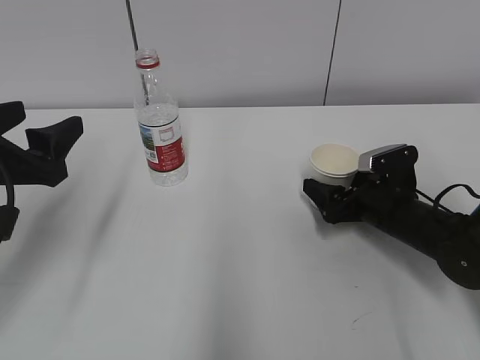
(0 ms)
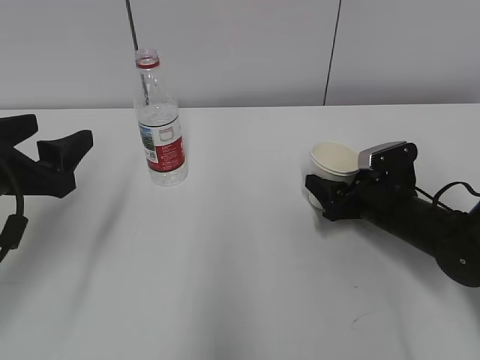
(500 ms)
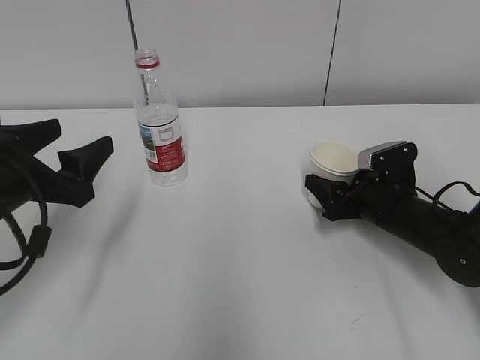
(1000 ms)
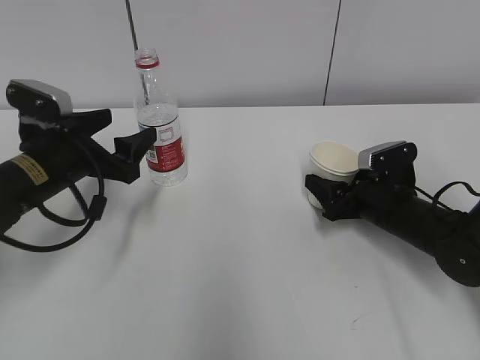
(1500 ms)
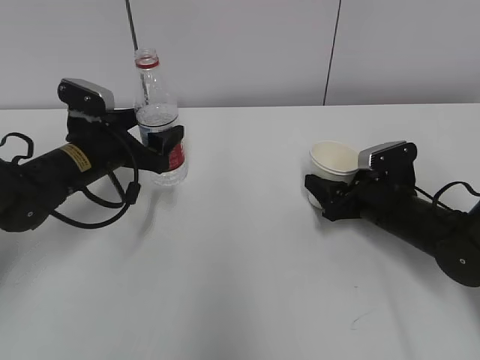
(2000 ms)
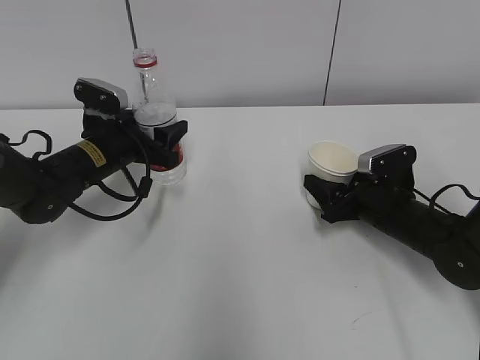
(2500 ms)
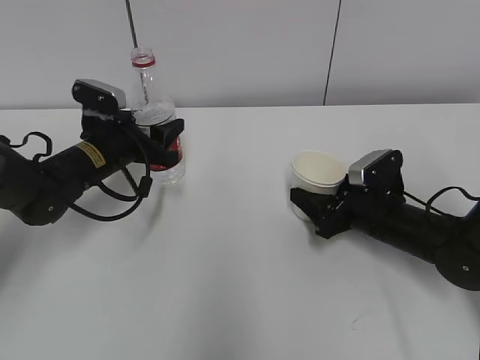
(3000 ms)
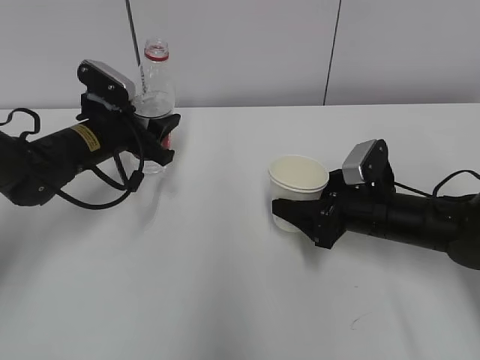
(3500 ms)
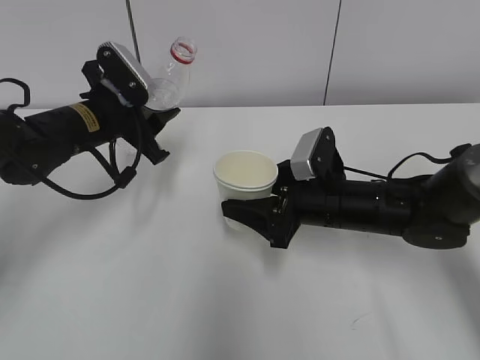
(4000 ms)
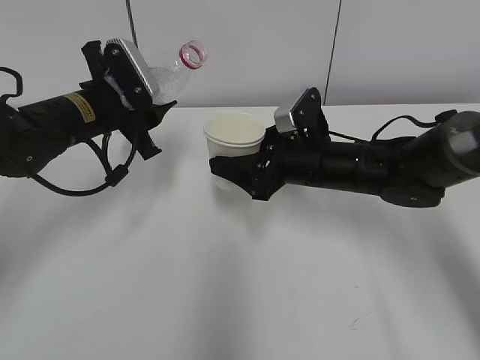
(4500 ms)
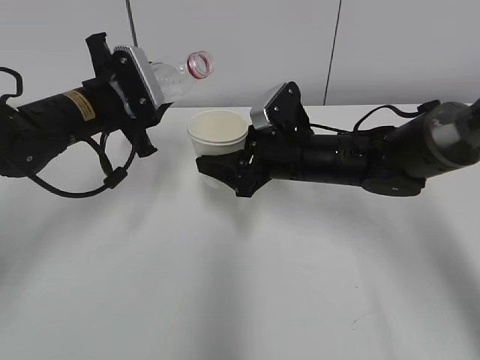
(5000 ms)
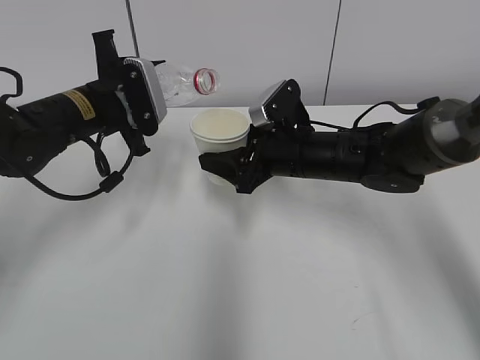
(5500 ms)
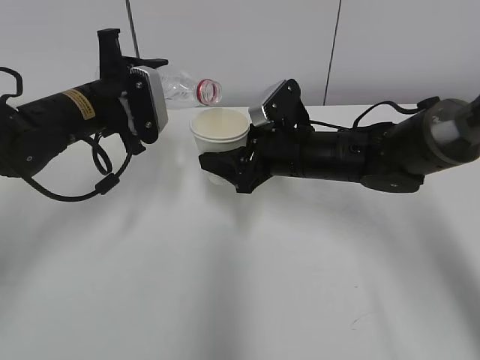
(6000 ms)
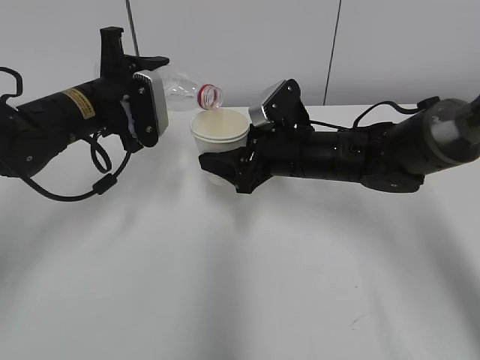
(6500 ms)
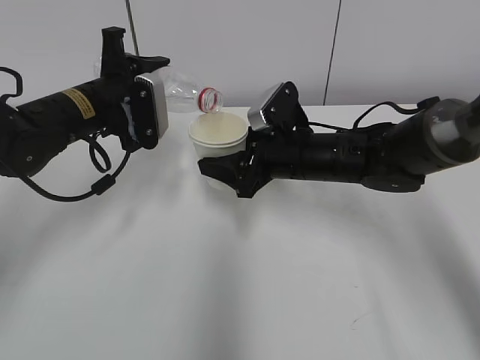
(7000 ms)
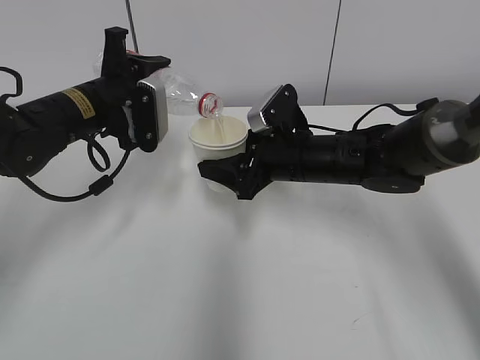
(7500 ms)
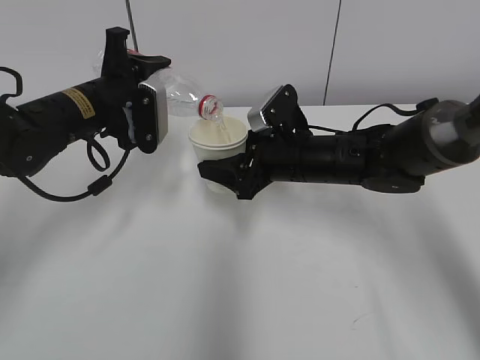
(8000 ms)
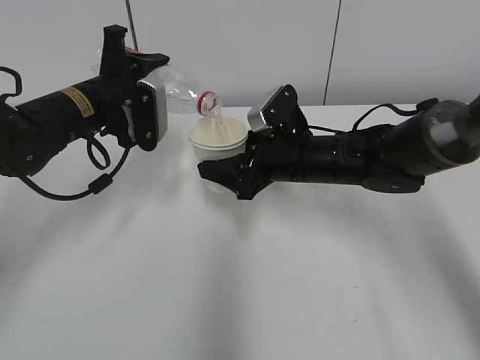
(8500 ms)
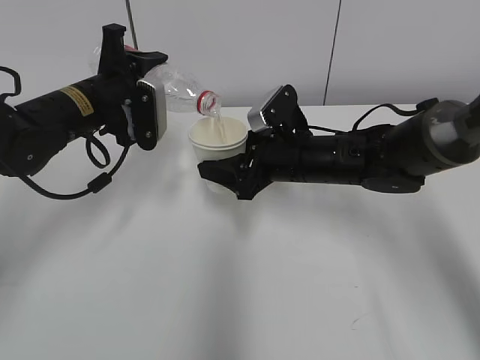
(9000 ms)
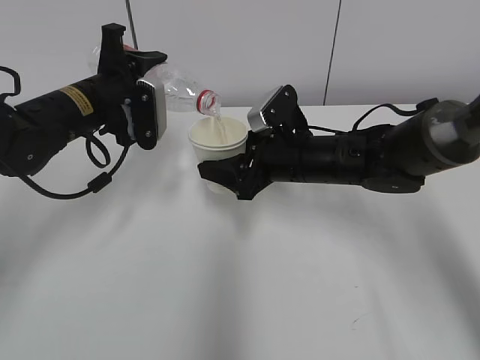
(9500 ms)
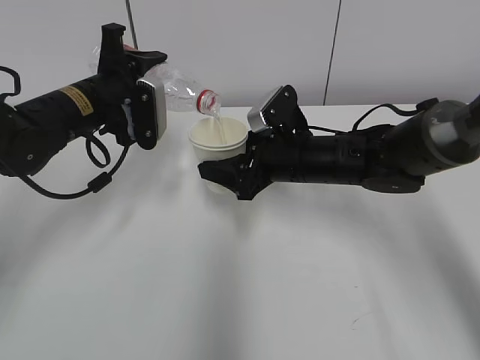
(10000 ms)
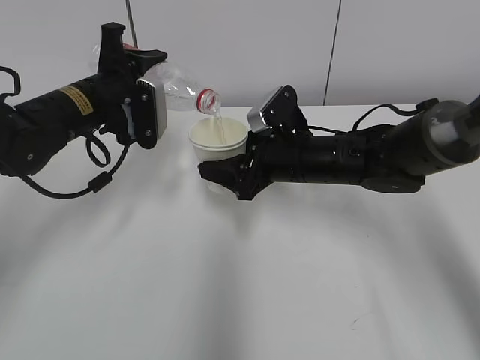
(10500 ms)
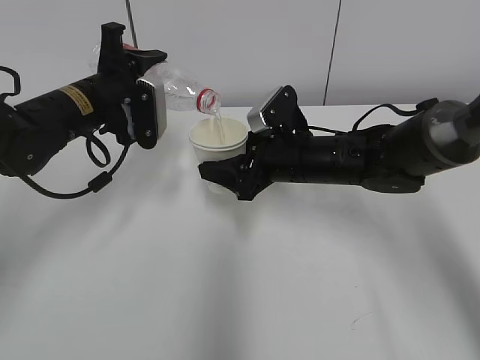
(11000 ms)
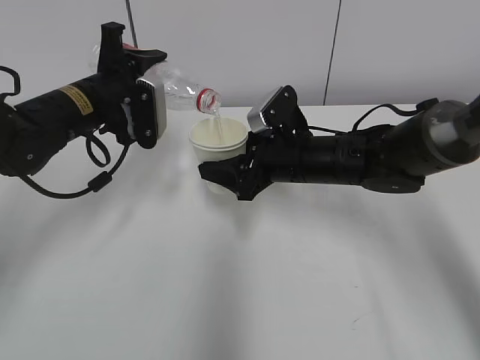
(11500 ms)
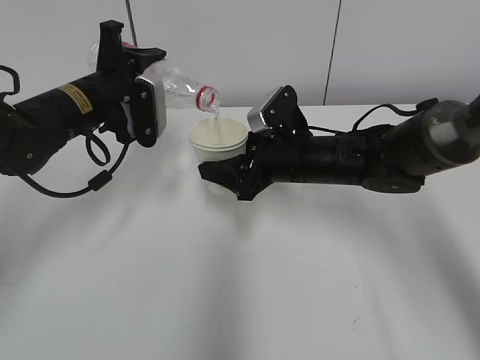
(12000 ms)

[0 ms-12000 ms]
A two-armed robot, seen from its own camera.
Step, 2000 ms to 4500 ms: Lift the paper cup with the right hand.
0 ms to 2000 ms: The left gripper moves forward, downward and to the right, some 20 cm. Meanwhile the right gripper closes.
2000 ms to 4000 ms: The right gripper is displaced to the left by about 10 cm; the left gripper changes place by about 5 cm, and closes.
4000 ms to 6000 ms: The right gripper travels forward by approximately 5 cm.
6000 ms to 8000 ms: The grippers make only small movements.
8000 ms to 12000 ms: The two grippers keep their place.

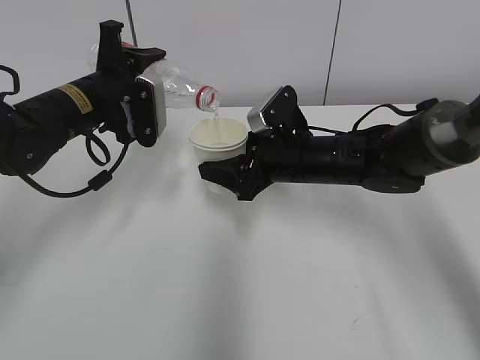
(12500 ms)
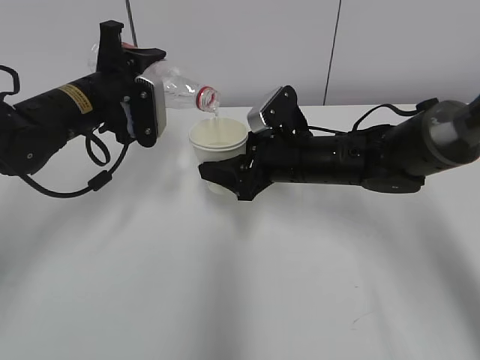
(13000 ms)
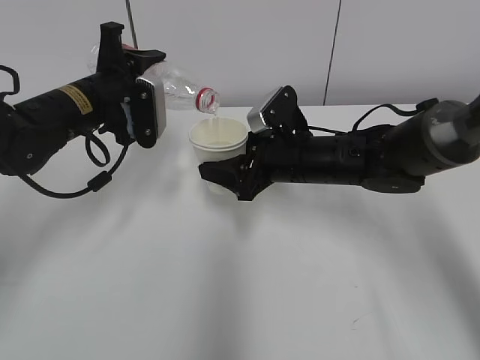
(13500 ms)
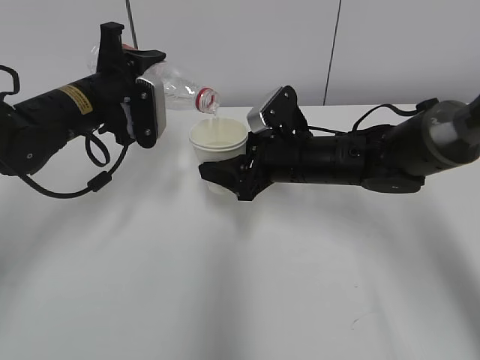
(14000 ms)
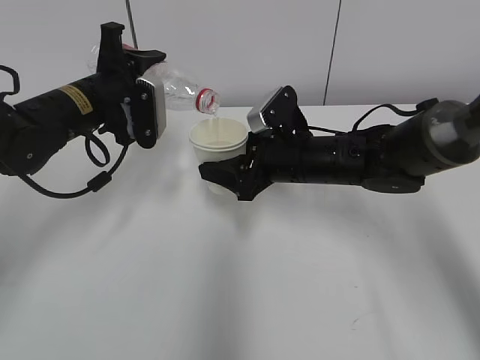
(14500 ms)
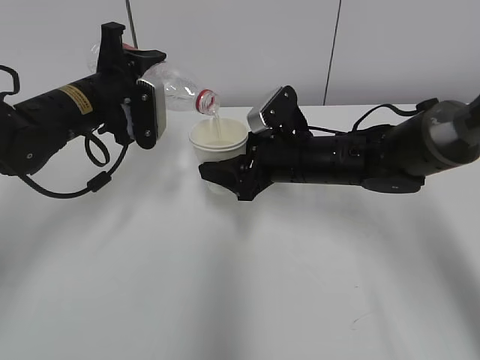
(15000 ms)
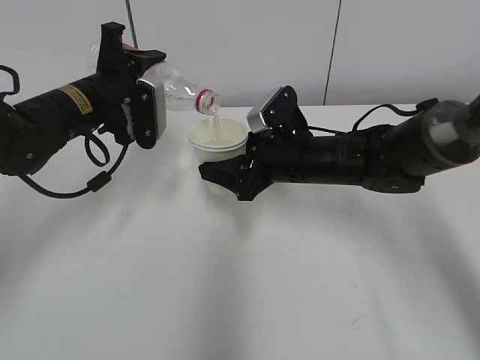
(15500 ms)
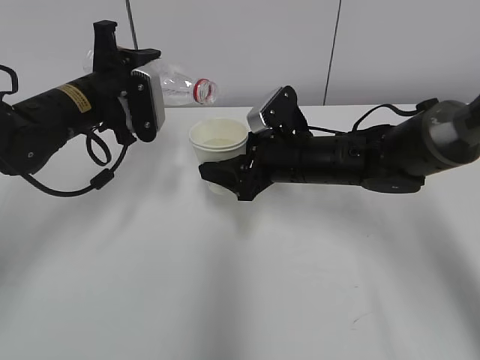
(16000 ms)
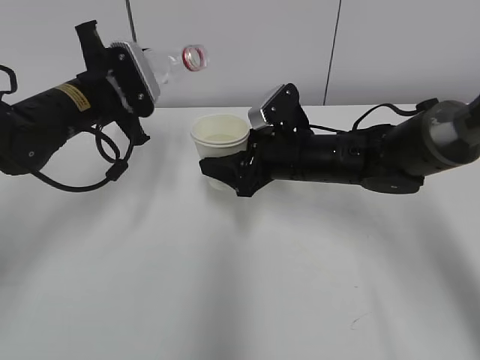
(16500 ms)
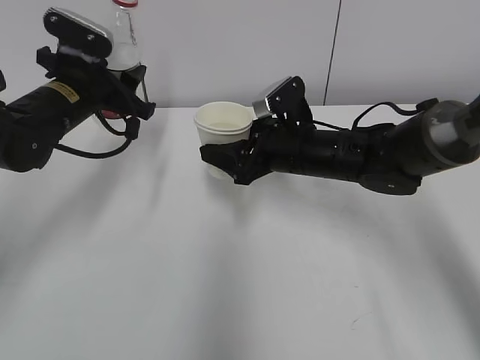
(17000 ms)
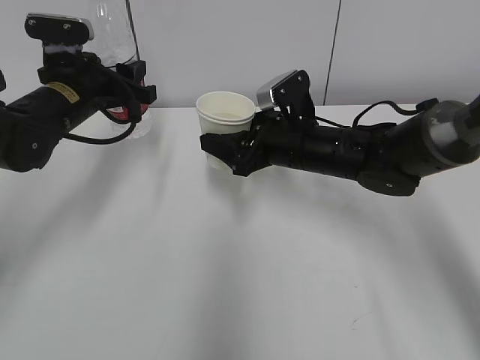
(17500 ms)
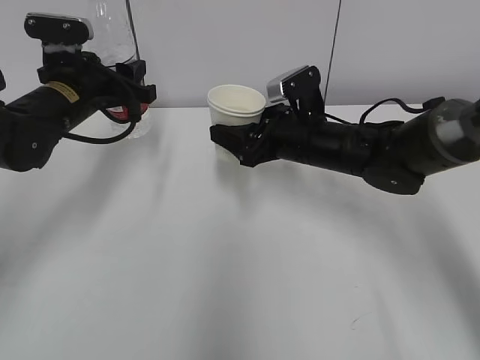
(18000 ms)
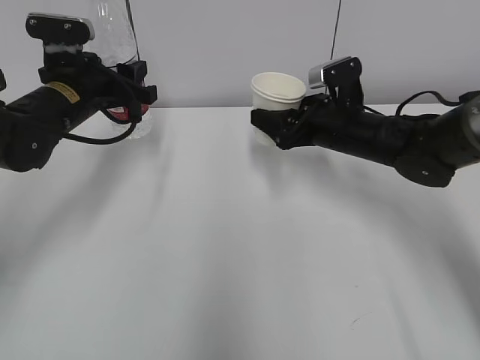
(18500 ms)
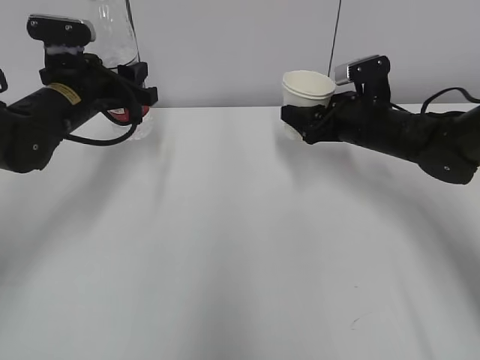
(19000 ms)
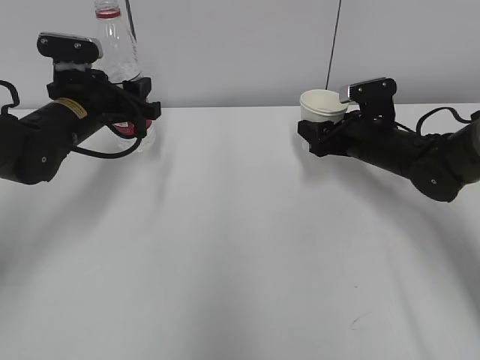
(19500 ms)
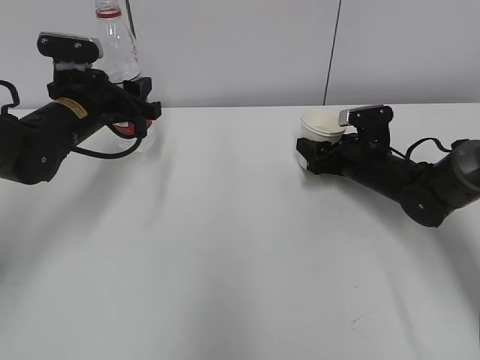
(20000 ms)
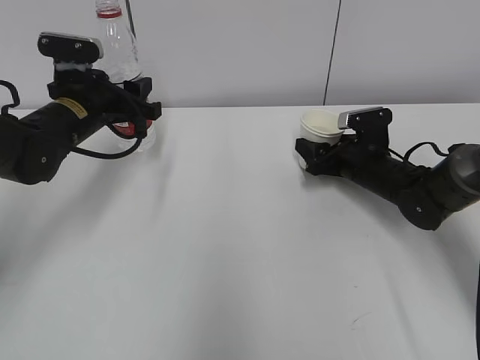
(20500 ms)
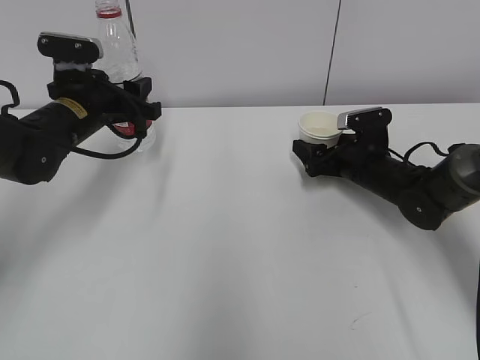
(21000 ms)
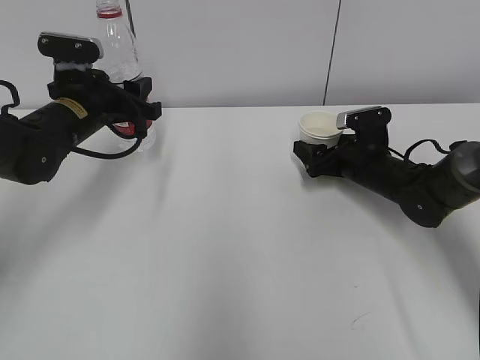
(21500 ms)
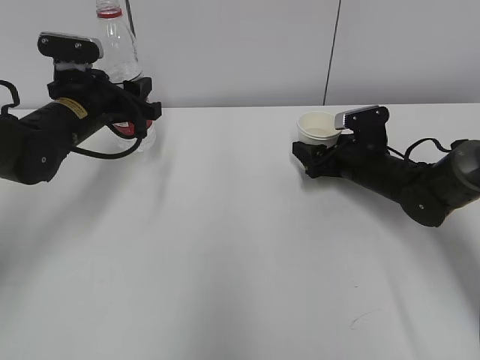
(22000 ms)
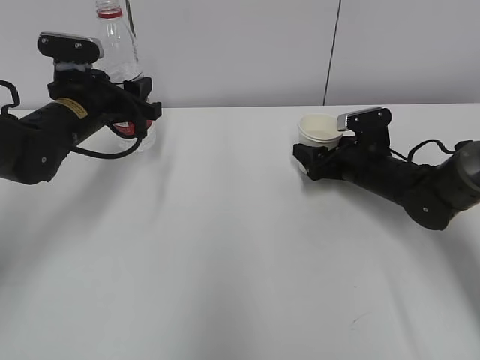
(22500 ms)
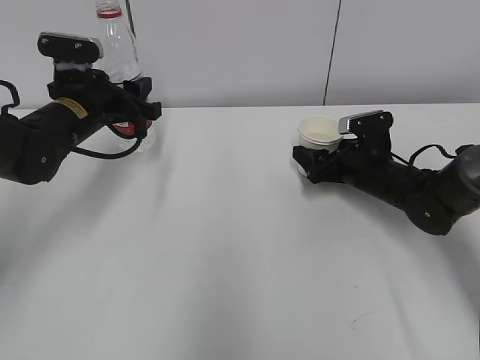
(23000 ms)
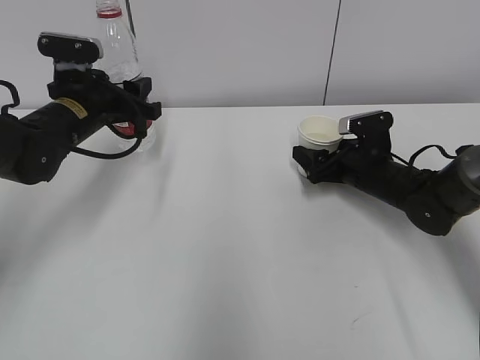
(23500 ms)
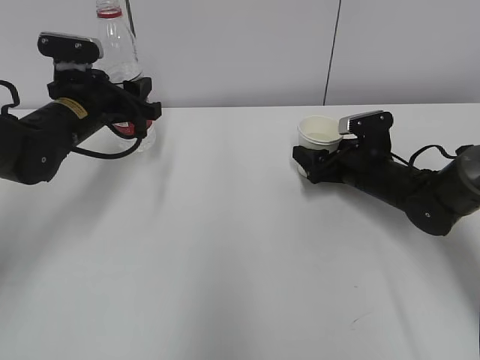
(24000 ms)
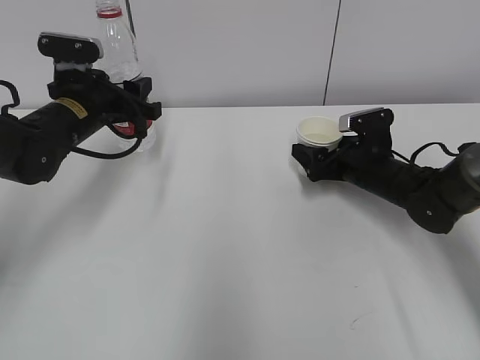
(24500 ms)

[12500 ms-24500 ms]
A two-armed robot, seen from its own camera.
Step, 13500 ms to 20500 ms: Place the paper cup with the right hand.
12500 ms to 14500 ms: Neither gripper changes place.
16500 ms to 18500 ms: The right gripper goes about 5 cm to the right.
18500 ms to 20500 ms: The right gripper shifts roughly 10 cm downward and to the right.
20500 ms to 22500 ms: The right gripper opens its fingers.
22500 ms to 24500 ms: Neither gripper changes place.

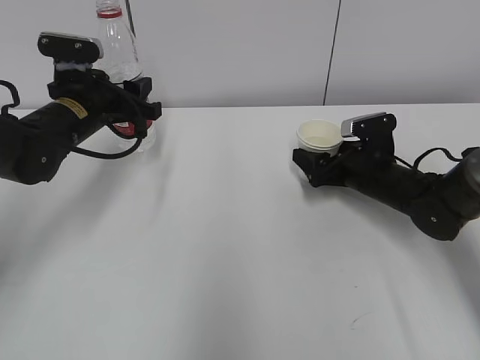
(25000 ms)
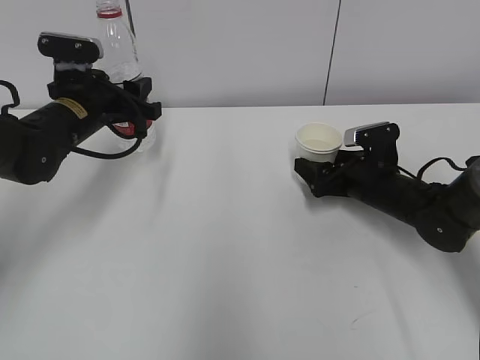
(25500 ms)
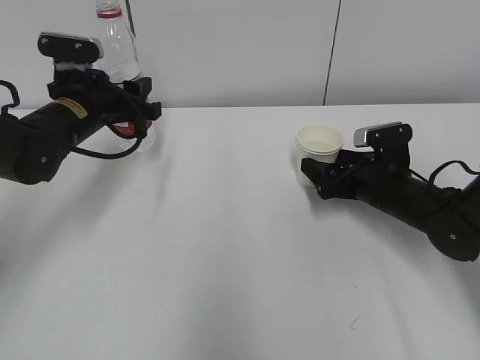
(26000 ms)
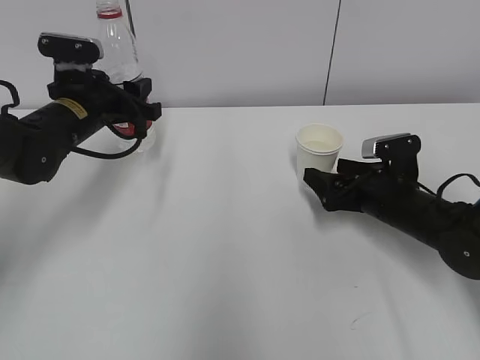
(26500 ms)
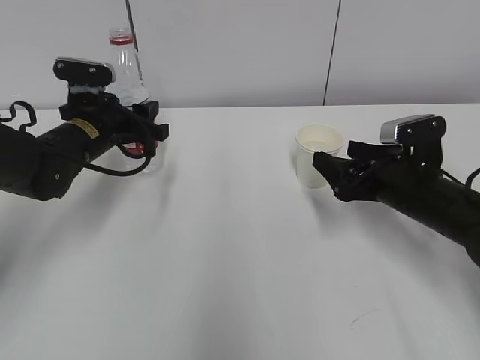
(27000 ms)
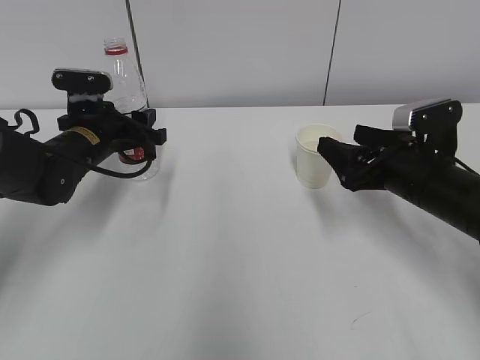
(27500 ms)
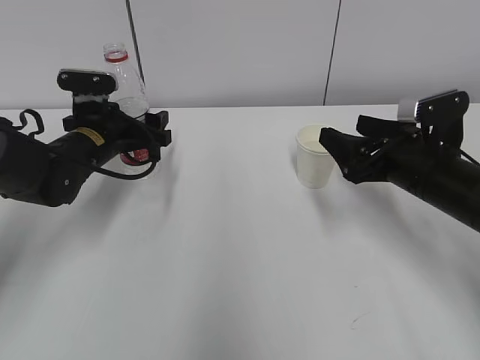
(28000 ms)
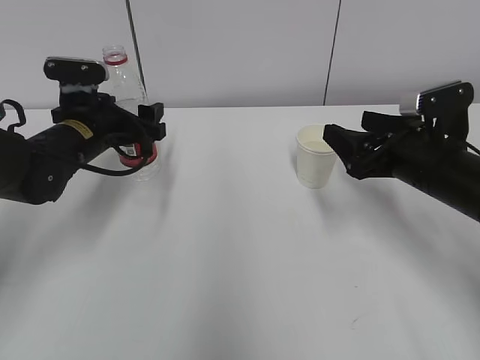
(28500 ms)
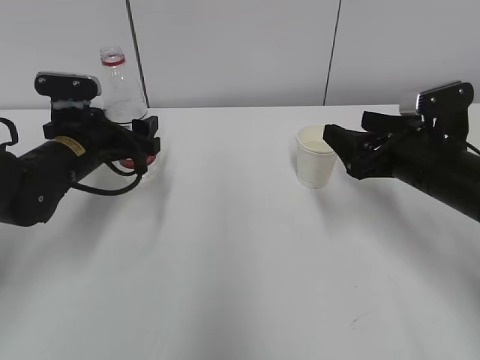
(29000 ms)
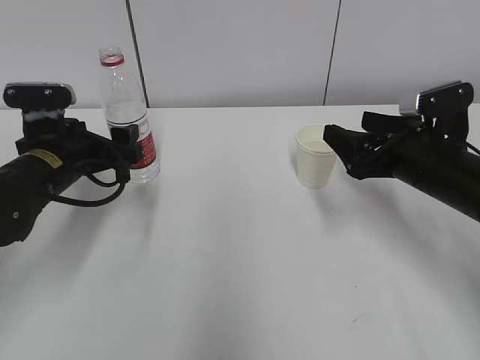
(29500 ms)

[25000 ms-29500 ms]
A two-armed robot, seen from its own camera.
25000 ms to 27000 ms: The right gripper travels backward by roughly 10 cm.
27000 ms to 29500 ms: The left gripper shifts some 5 cm backward, and opens its fingers.
